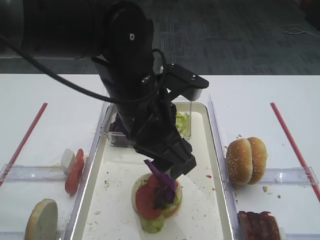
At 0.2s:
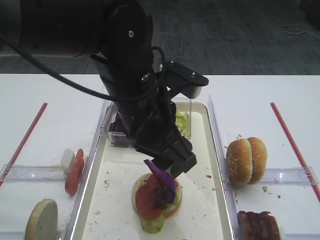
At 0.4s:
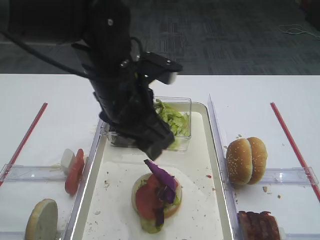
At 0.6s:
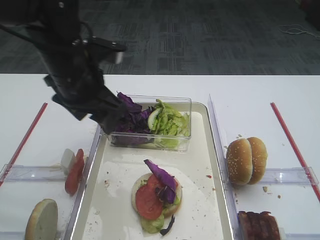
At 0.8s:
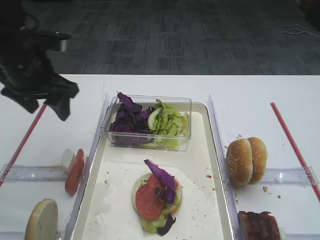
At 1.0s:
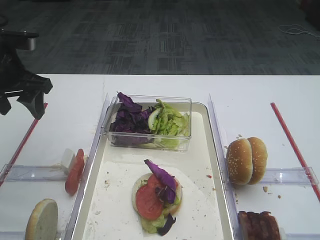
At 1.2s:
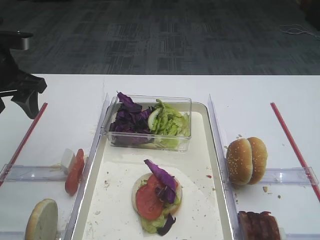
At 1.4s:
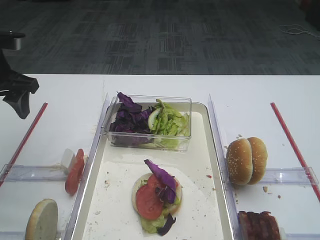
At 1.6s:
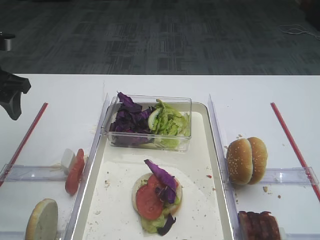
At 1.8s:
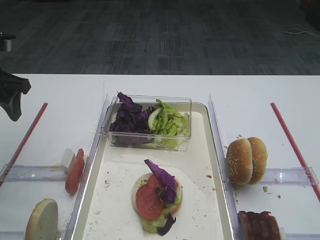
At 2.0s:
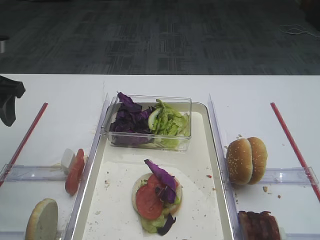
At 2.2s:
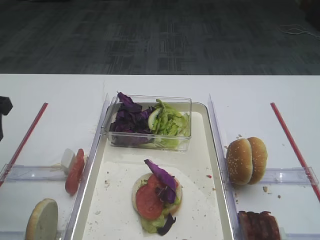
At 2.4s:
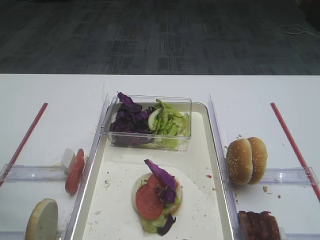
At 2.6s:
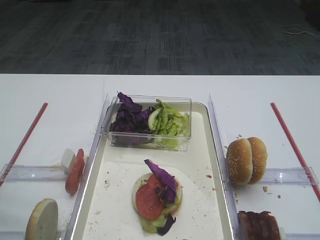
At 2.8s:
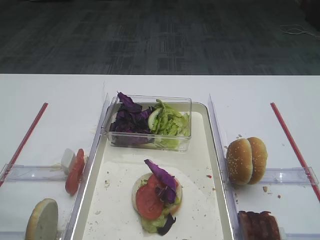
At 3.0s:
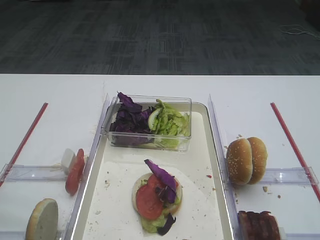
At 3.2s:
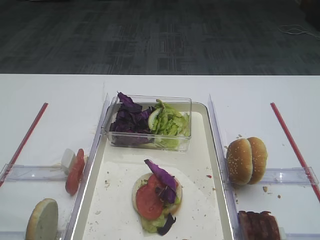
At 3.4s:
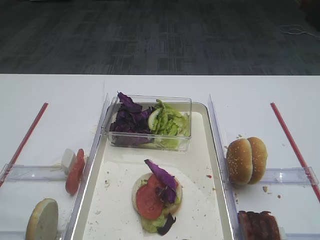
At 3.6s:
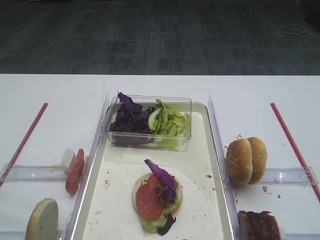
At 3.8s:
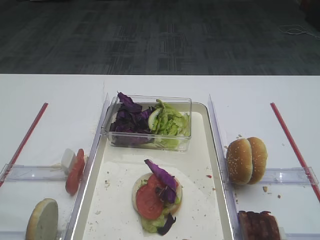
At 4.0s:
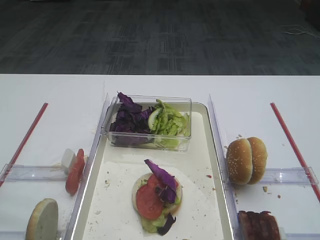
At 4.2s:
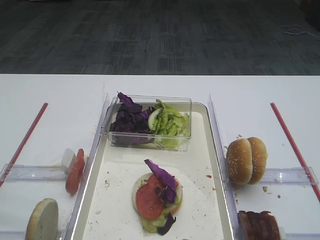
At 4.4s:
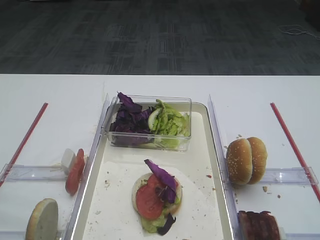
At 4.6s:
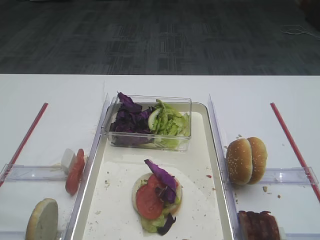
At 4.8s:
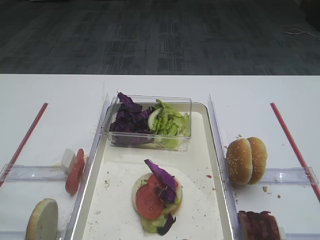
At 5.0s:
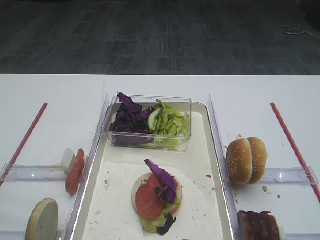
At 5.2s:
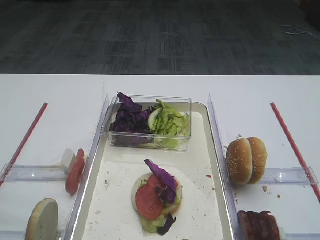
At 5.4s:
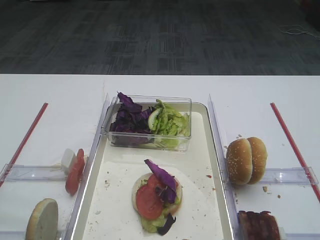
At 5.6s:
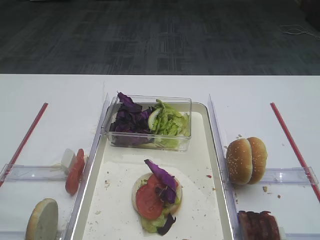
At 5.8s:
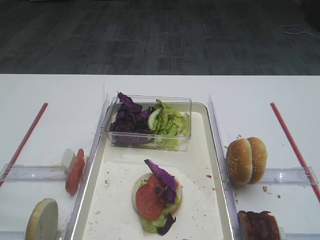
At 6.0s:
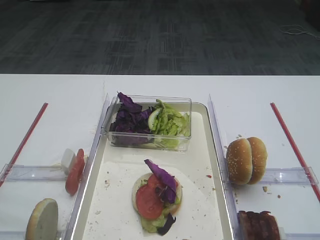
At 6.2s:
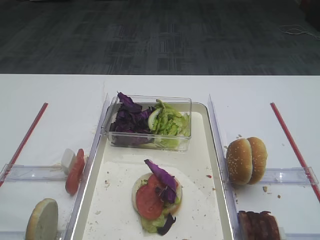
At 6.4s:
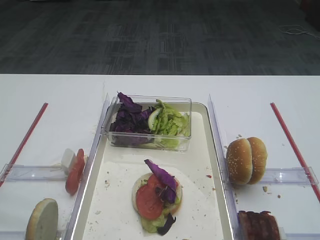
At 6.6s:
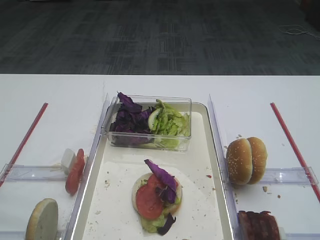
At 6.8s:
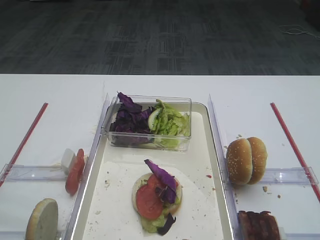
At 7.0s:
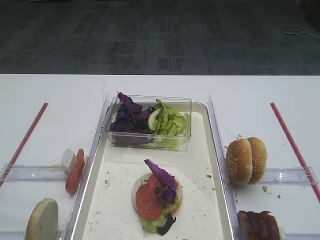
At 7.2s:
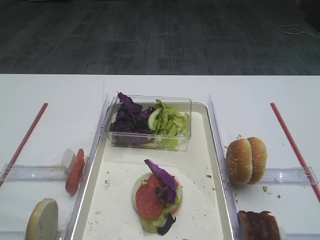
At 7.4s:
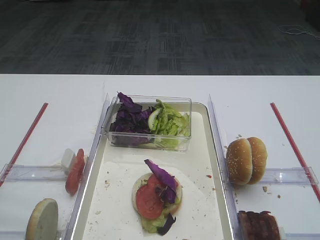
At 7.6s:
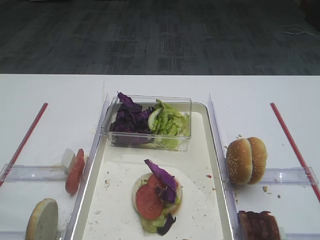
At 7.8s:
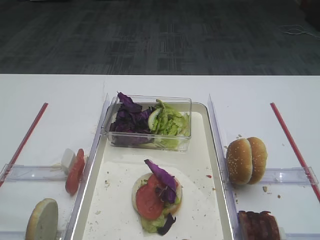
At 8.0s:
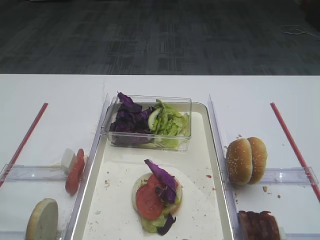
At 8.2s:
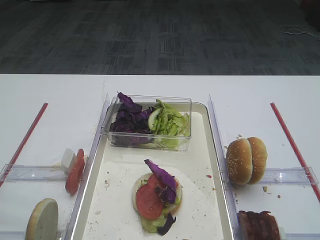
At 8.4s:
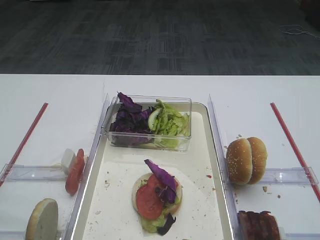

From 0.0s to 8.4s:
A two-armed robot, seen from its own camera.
From 0.0s to 1.4s: The left gripper moves to the left, roughly 25 cm.
From 1.4s to 2.8s: The left gripper moves backward, roughly 20 cm.
From 4.2s to 8.4s: Both grippers stay put.

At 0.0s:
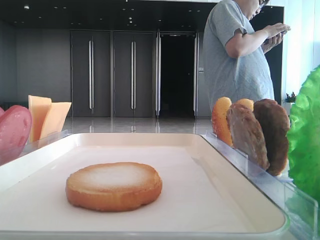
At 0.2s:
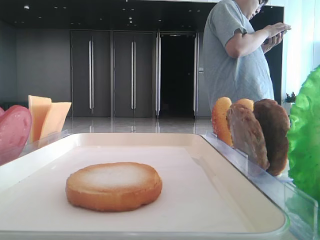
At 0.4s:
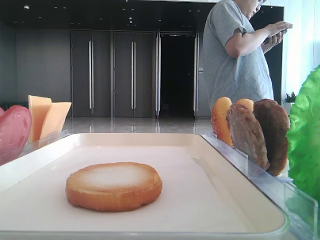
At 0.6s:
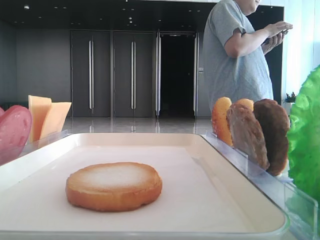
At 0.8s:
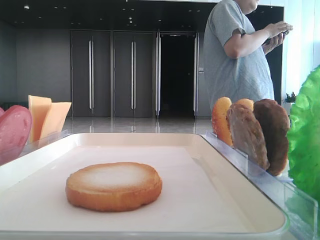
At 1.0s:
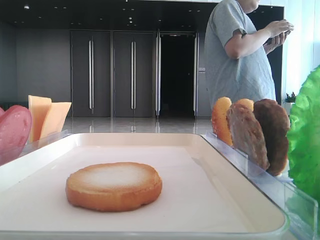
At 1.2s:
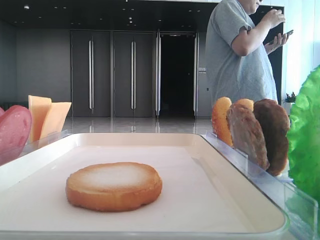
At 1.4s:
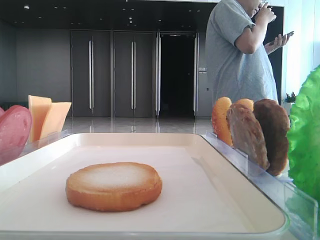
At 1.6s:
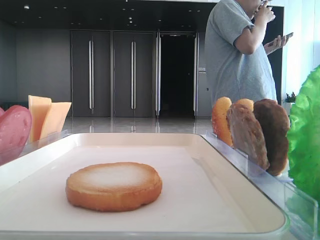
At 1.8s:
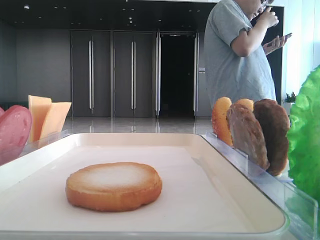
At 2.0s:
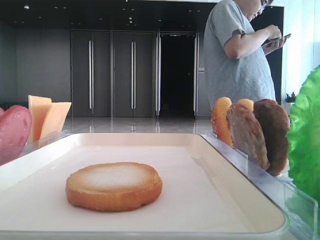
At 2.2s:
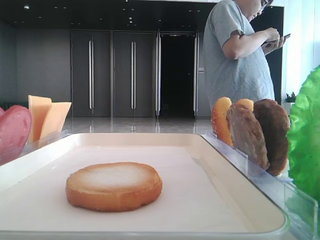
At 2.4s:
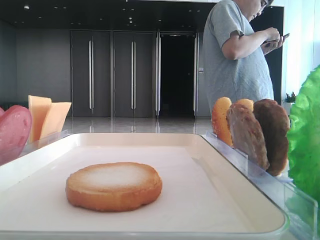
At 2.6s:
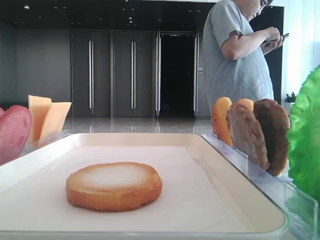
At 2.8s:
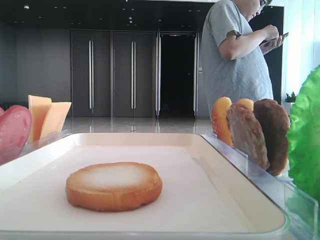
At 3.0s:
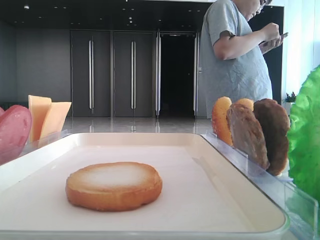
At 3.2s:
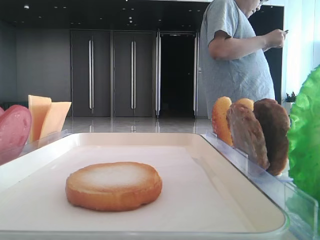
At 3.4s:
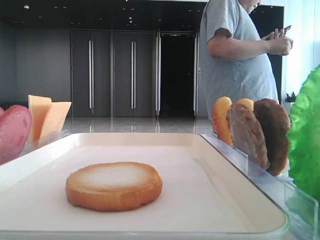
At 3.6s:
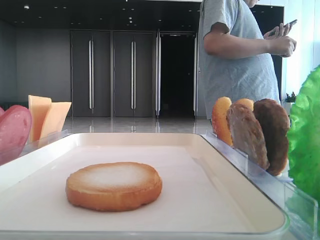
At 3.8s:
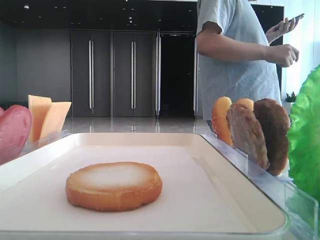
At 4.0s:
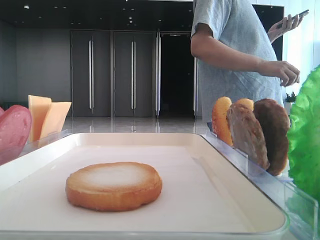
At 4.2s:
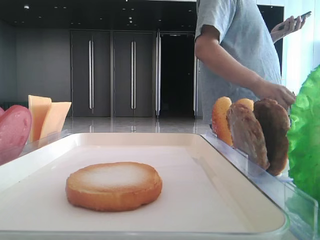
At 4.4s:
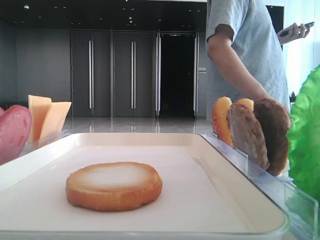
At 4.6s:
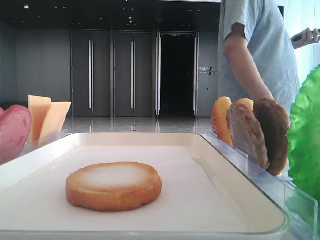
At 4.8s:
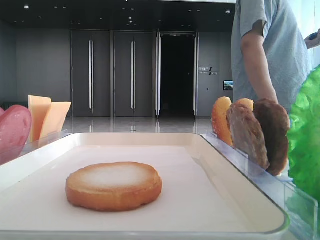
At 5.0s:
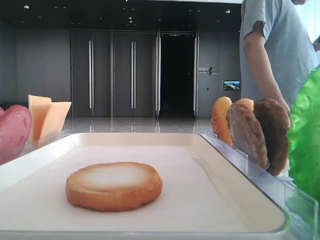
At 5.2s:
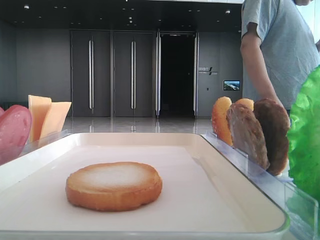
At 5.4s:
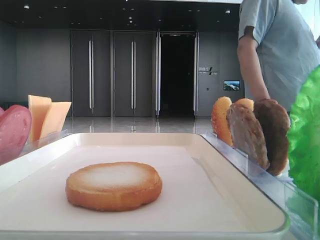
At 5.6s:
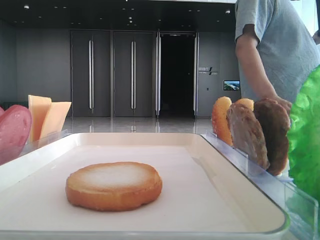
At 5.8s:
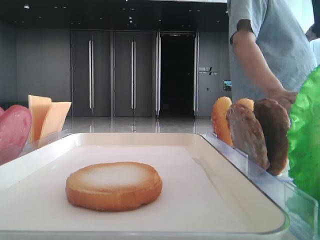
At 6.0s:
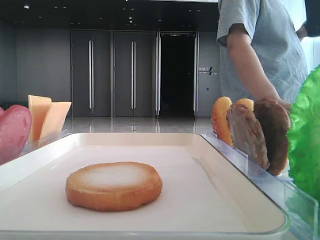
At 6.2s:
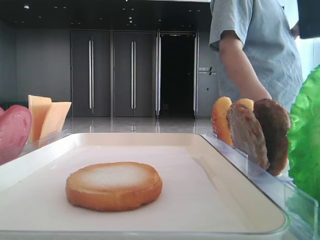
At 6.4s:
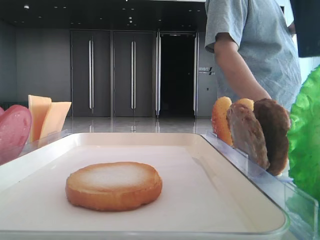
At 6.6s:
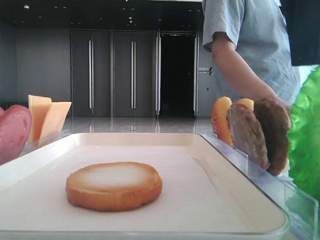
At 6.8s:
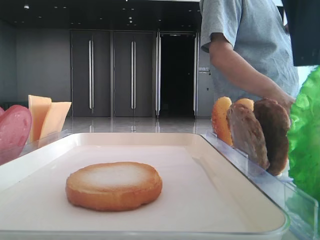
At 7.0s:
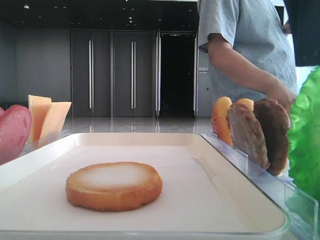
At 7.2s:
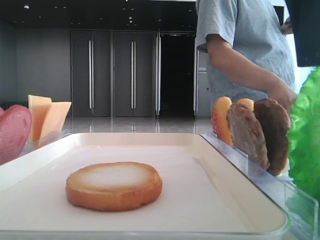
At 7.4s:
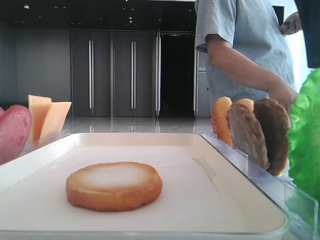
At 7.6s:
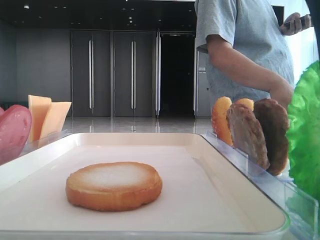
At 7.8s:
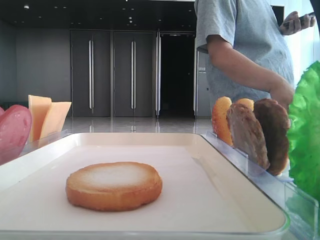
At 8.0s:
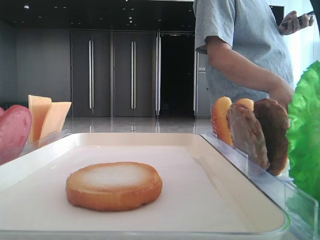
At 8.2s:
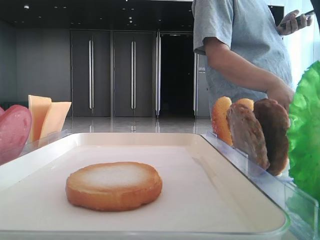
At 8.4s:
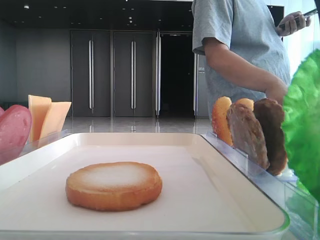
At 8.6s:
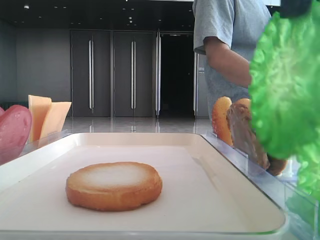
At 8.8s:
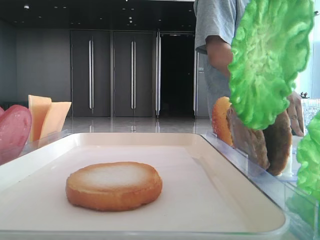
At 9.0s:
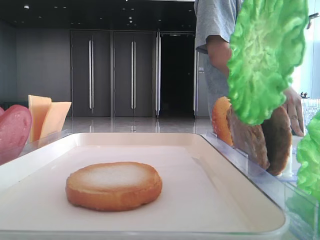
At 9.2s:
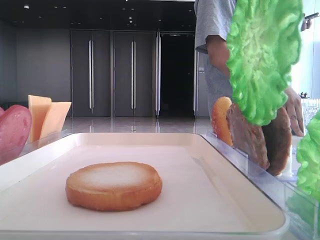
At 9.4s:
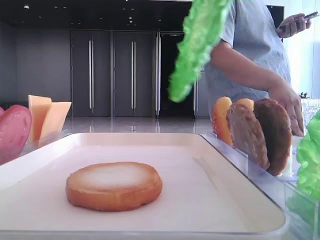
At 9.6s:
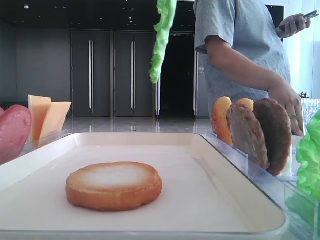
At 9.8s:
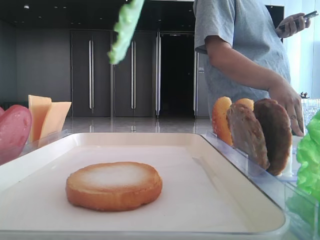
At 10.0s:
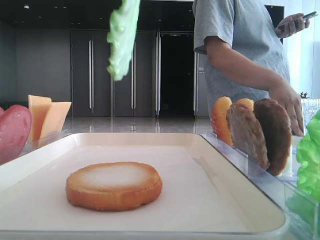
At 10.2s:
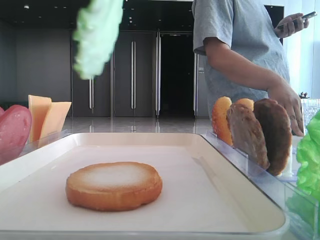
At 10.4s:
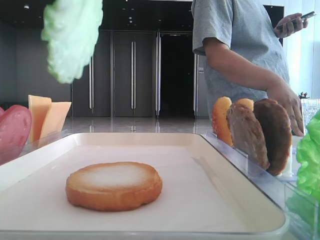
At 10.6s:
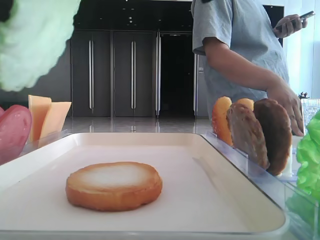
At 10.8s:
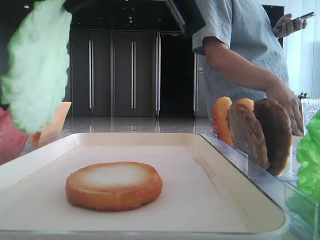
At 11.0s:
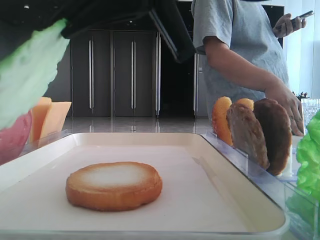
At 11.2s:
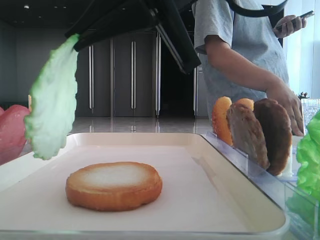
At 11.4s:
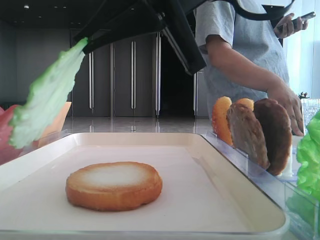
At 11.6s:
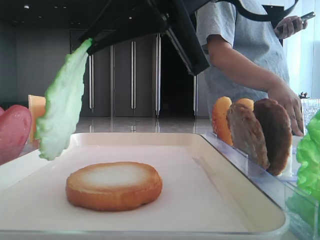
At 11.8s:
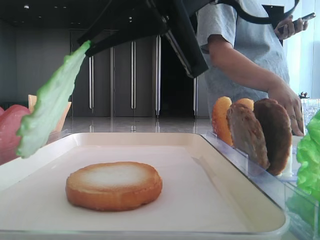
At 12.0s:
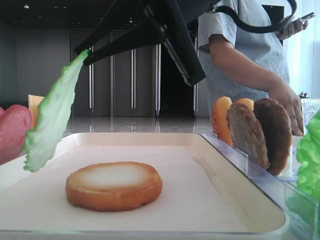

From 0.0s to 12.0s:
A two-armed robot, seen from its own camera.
Step, from 0.0s to 8.0s: Grab the lettuce leaf with the right hand.
From 1.6s to 3.0s: The right gripper is displaced forward and upward by about 15 cm.
From 3.0s to 4.4s: The right gripper heads to the left, covering roughly 10 cm.
From 4.4s to 6.0s: The right gripper moves downward, some 5 cm.
From 6.0s to 7.6s: The right gripper closes its fingers.
From 7.6s to 9.0s: The right gripper travels upward by approximately 5 cm.
From 9.0s to 10.4s: The right gripper travels to the left by about 5 cm.
From 10.4s to 12.0s: The right gripper shifts about 10 cm downward and forward.

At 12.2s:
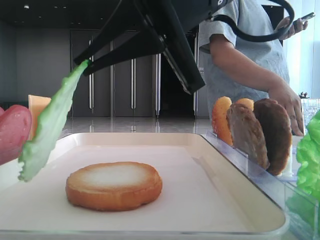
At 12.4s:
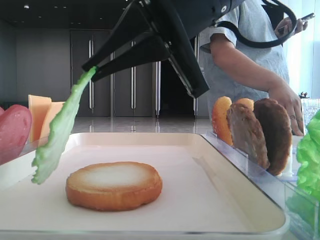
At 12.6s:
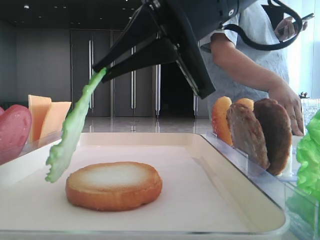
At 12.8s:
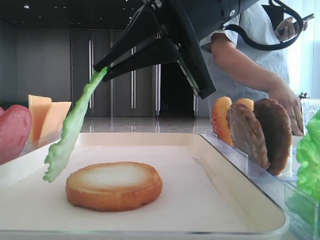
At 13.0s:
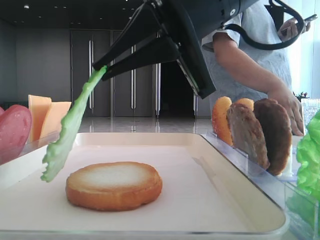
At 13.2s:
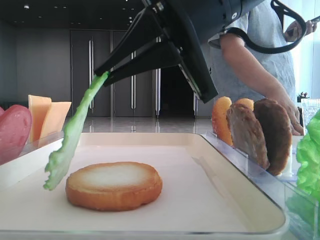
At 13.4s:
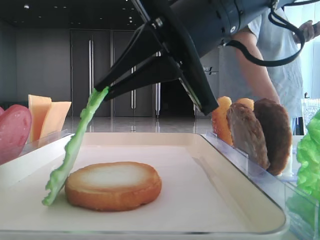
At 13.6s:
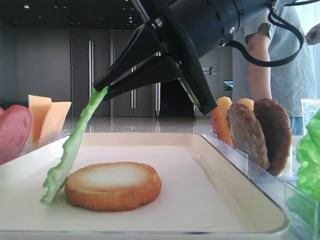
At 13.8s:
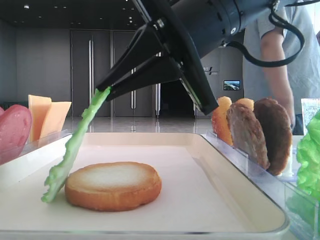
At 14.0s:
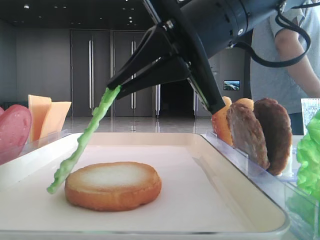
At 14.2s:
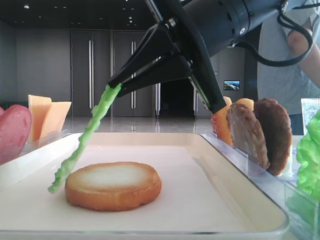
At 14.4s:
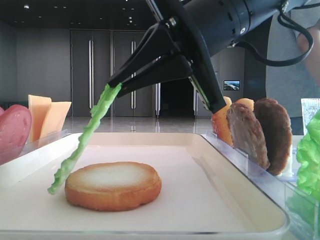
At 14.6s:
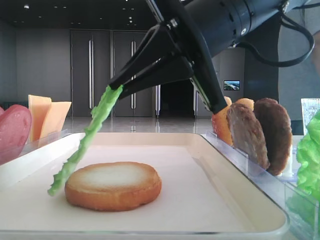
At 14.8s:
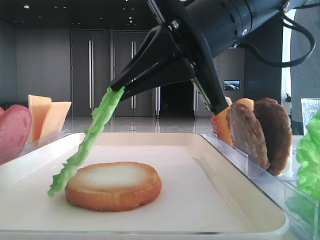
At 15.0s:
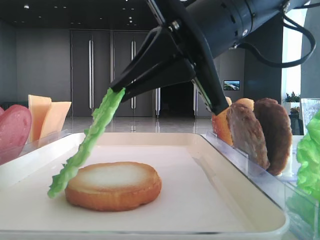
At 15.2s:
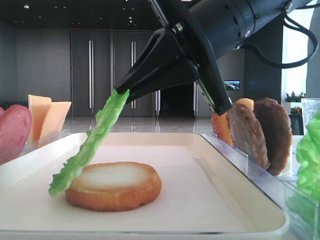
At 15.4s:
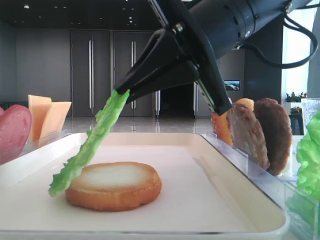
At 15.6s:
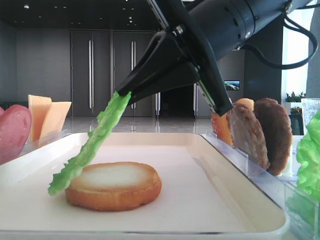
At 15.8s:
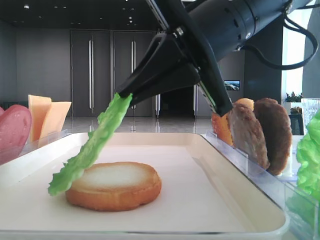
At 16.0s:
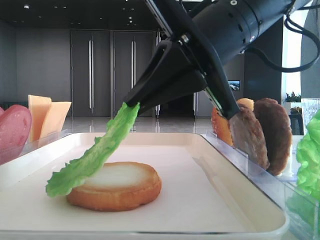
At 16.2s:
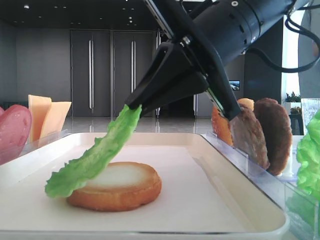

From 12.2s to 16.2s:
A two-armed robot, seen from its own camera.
From 13.6s to 16.2s: The grippers make only small movements.
